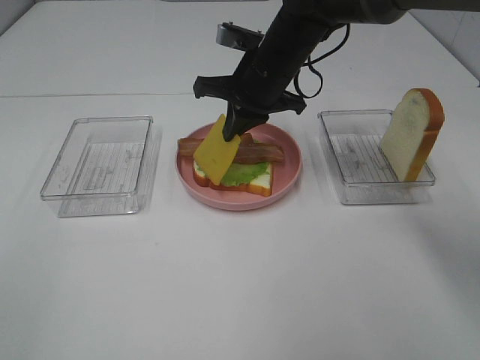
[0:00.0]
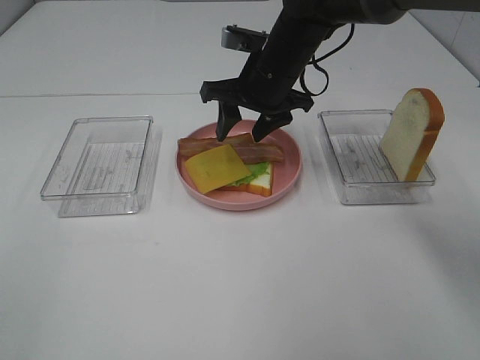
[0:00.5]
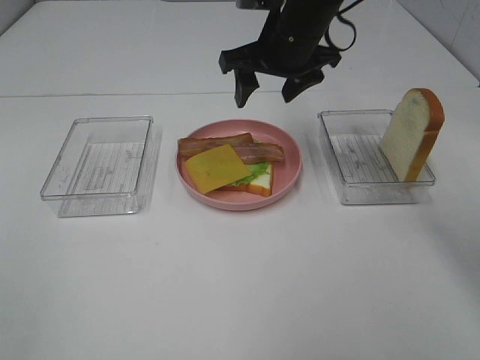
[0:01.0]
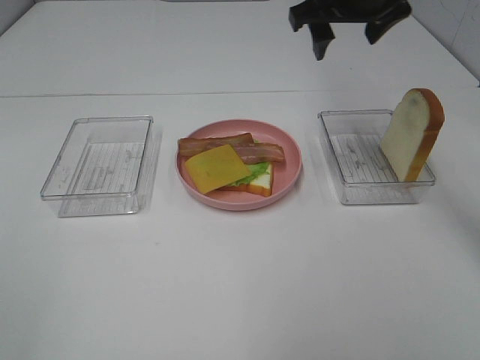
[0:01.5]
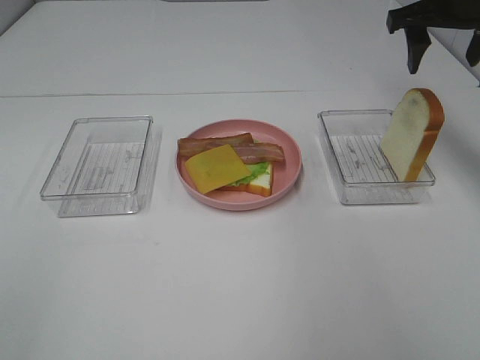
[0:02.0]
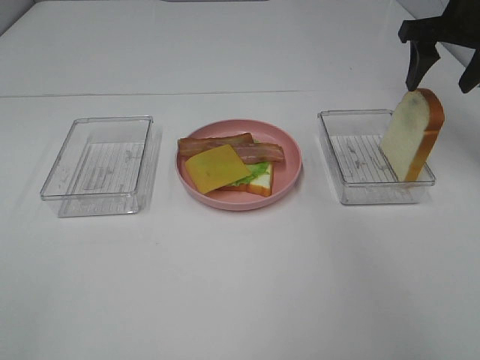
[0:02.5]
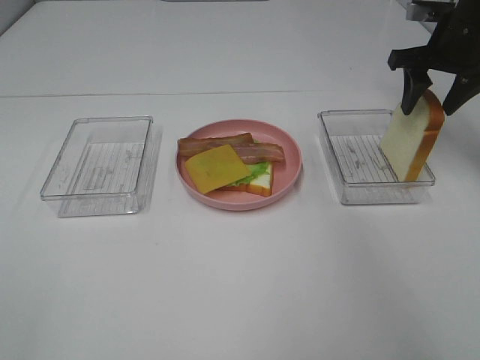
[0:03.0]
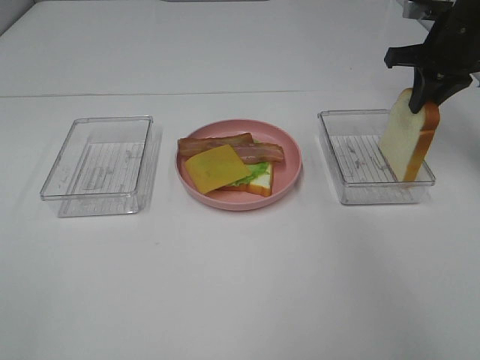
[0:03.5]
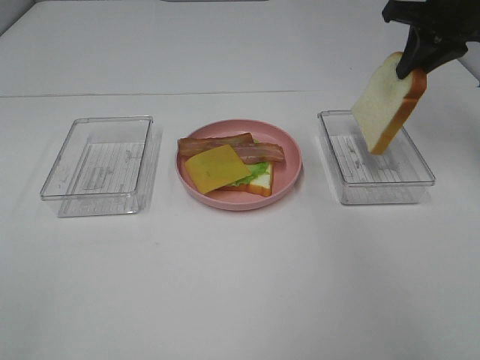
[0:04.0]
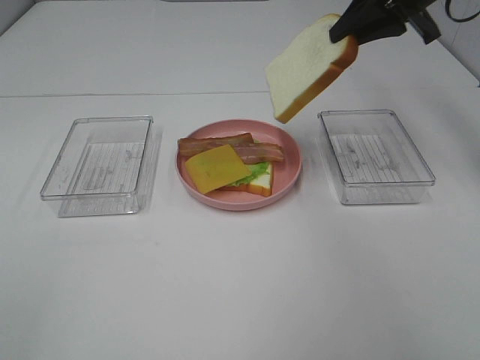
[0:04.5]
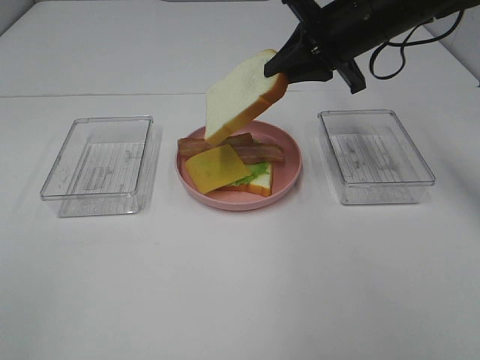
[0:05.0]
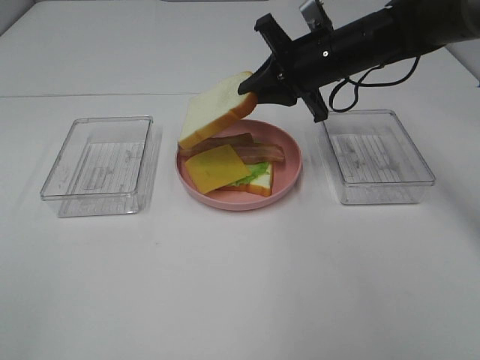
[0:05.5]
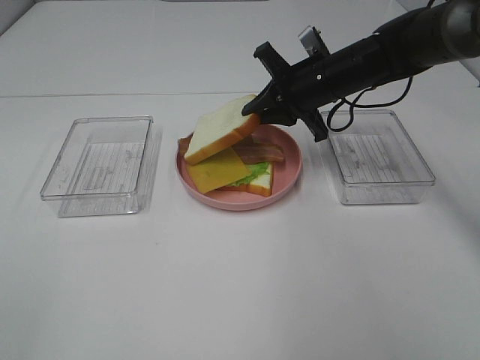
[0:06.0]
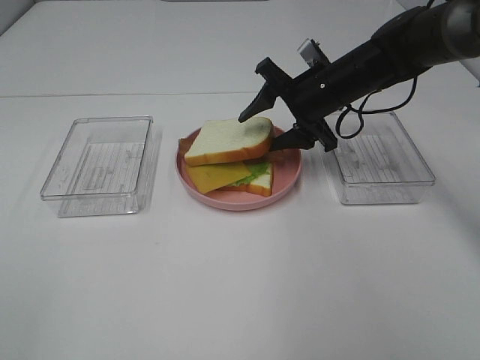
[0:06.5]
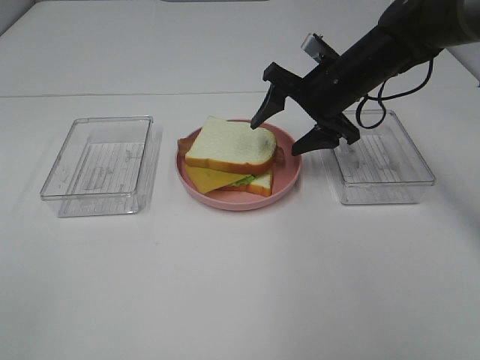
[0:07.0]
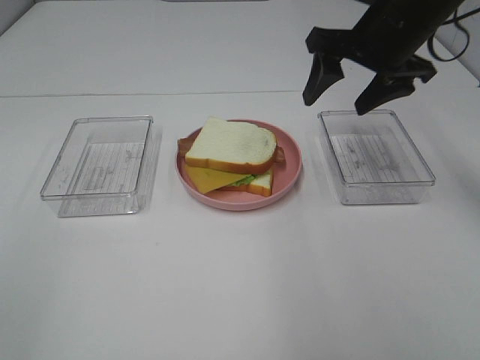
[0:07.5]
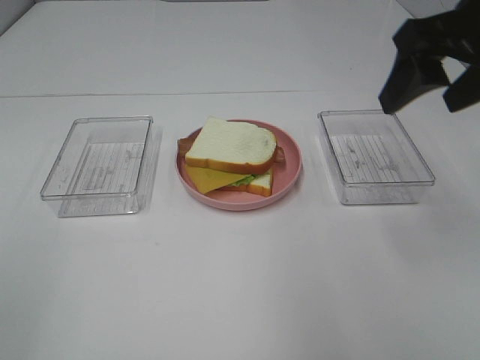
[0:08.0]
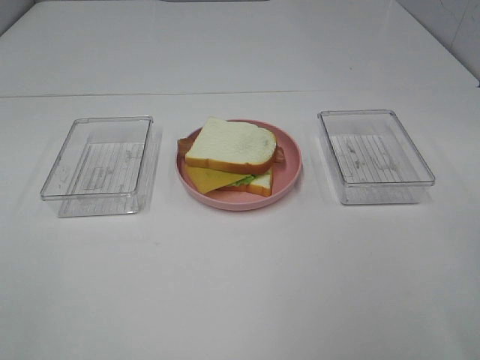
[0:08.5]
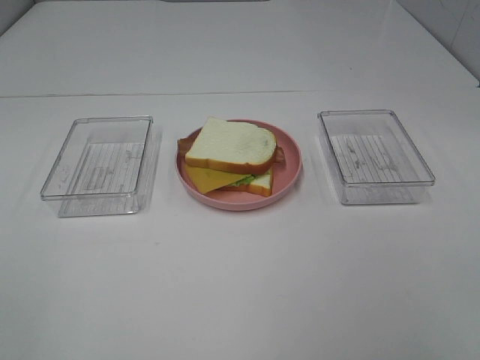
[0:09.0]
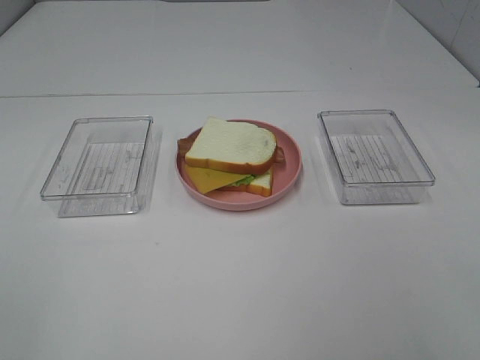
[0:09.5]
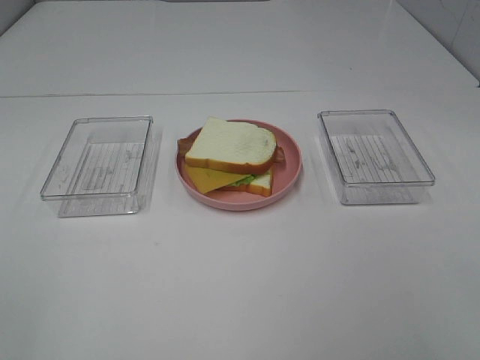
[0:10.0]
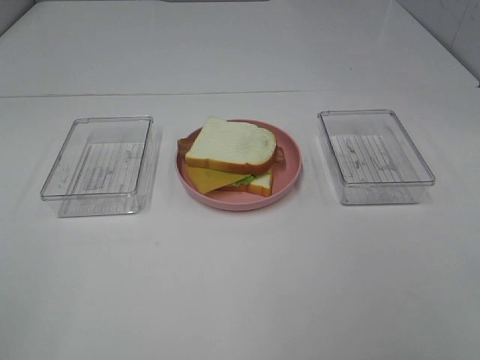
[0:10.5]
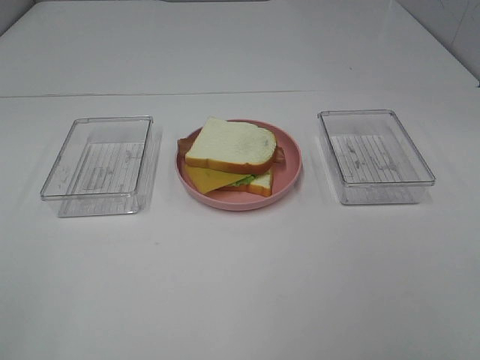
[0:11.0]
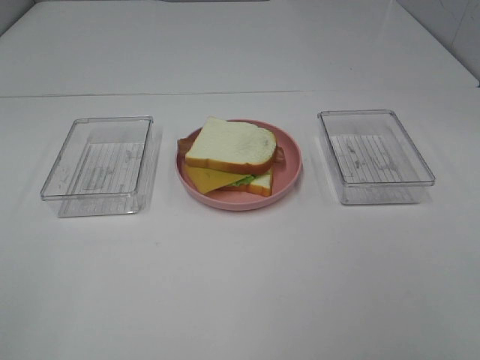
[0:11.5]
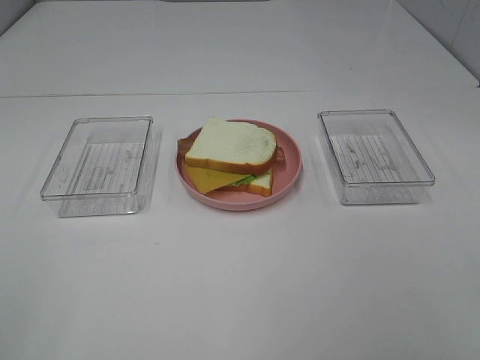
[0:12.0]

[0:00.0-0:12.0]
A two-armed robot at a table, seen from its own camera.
Task of the whole recording: Make sandwiches.
Step, 0:01.0 to 0:03.0: Right hand:grab the bread slice.
Step, 0:03.5 to 0:07.0: Right hand:place the bread slice on the cheese slice.
0:00.0 to 0:02.0: The right gripper shifts approximately 25 cm to the right and upward, and opens.
0:02.0 to 0:04.0: The right gripper closes.
0:04.0 to 0:06.0: The right gripper shifts about 20 cm to the left and downward.
0:06.0 to 0:08.0: The right gripper travels backward, upward and to the right by some 25 cm, and opens its fingers.
0:08.0 to 0:10.0: The right gripper travels backward by about 25 cm.

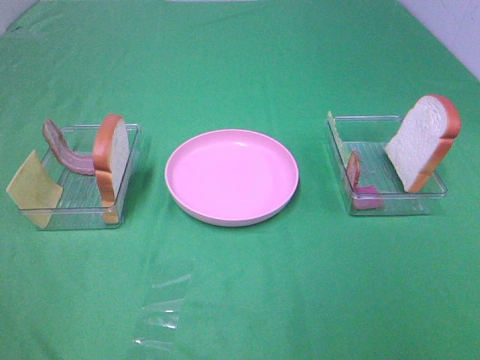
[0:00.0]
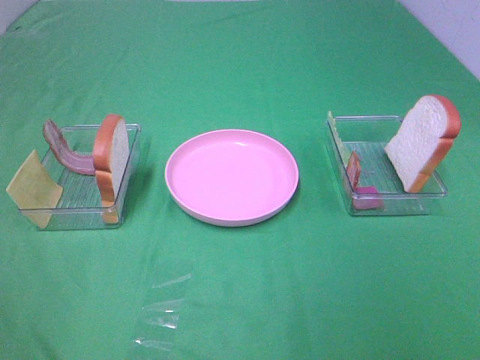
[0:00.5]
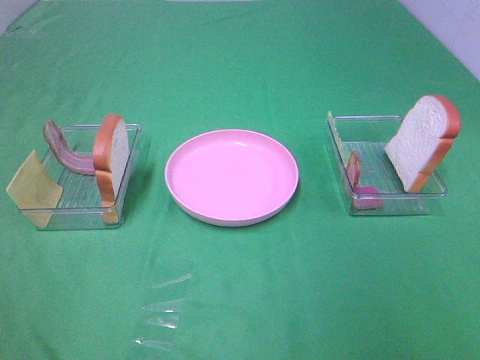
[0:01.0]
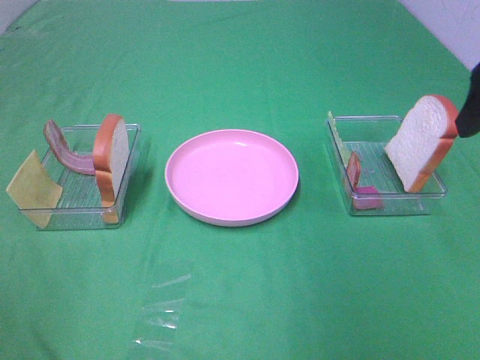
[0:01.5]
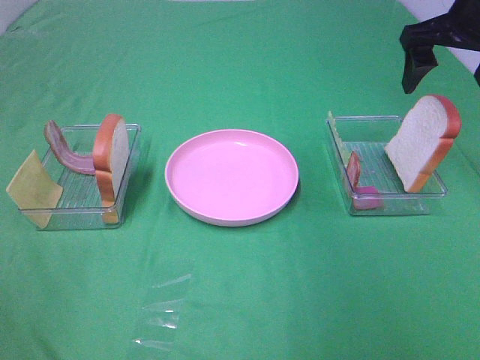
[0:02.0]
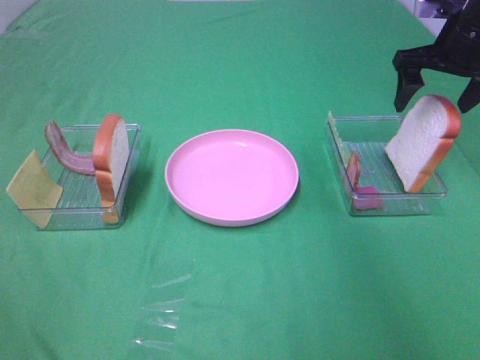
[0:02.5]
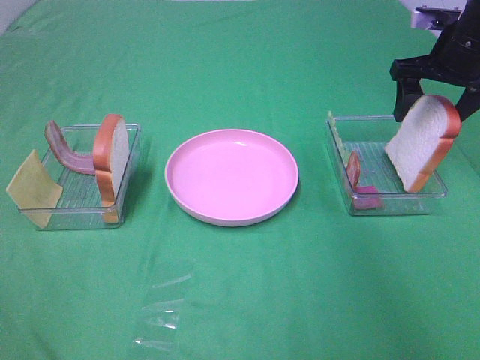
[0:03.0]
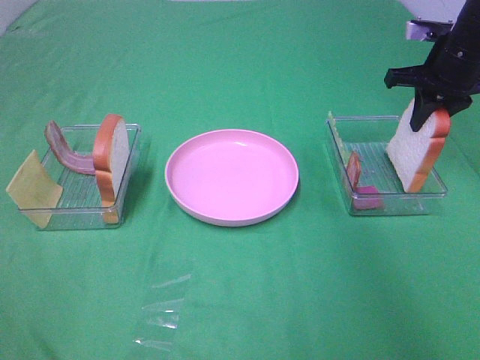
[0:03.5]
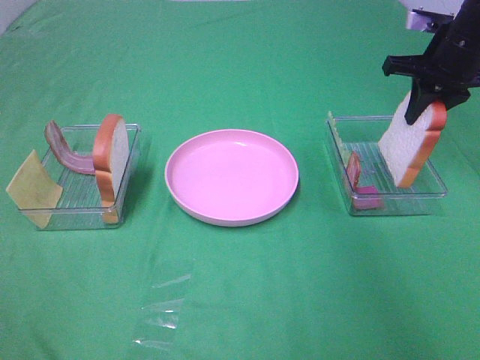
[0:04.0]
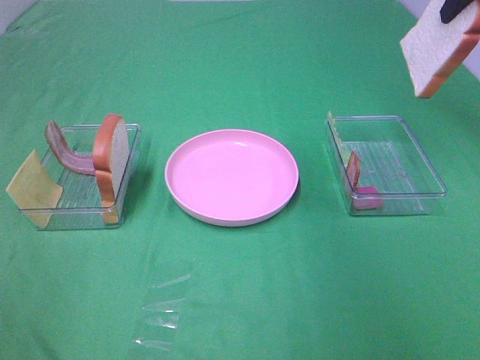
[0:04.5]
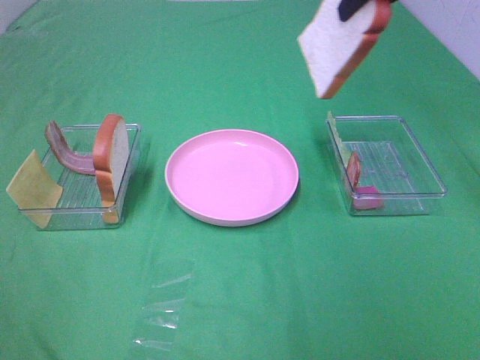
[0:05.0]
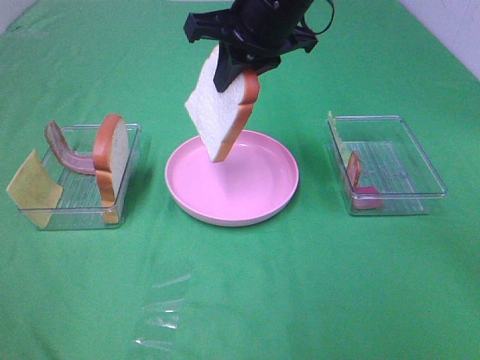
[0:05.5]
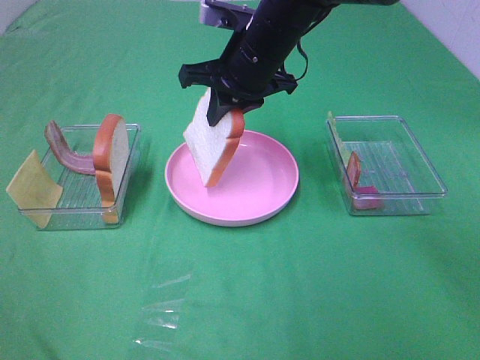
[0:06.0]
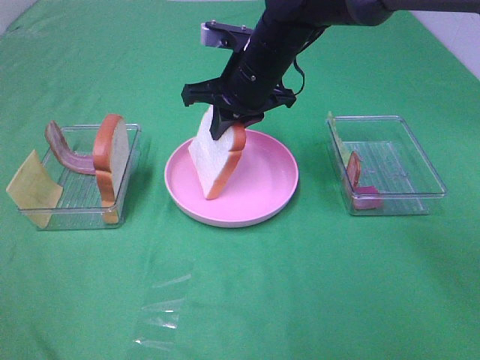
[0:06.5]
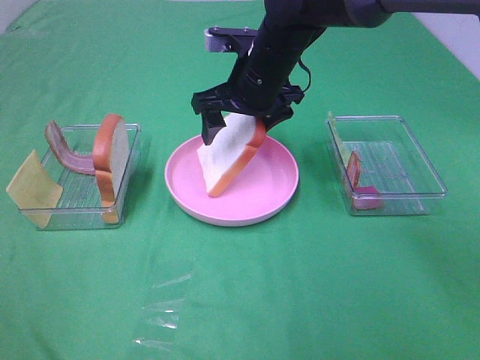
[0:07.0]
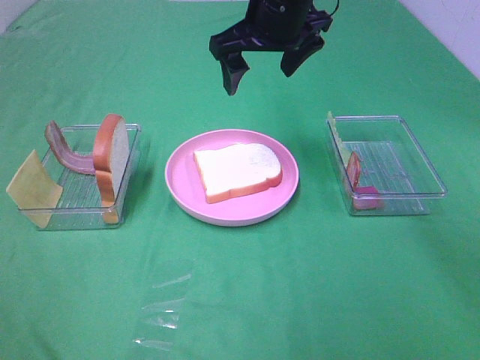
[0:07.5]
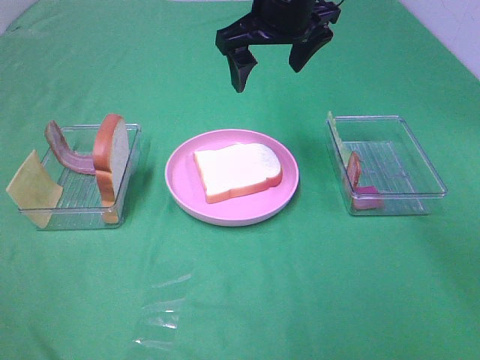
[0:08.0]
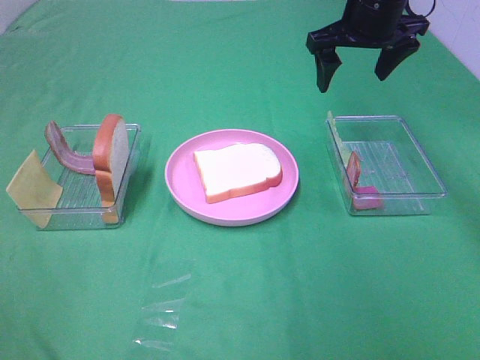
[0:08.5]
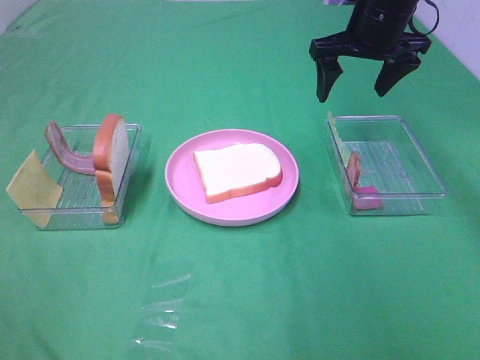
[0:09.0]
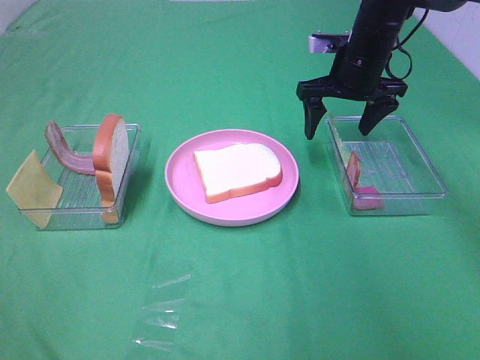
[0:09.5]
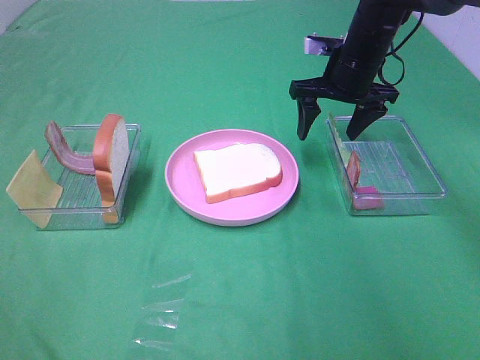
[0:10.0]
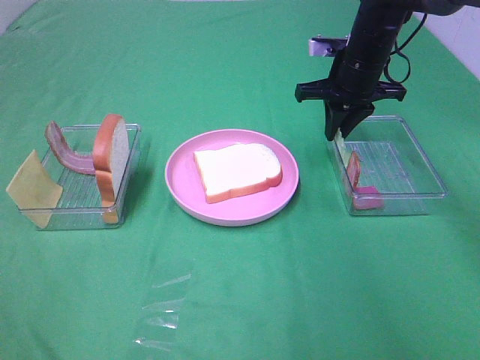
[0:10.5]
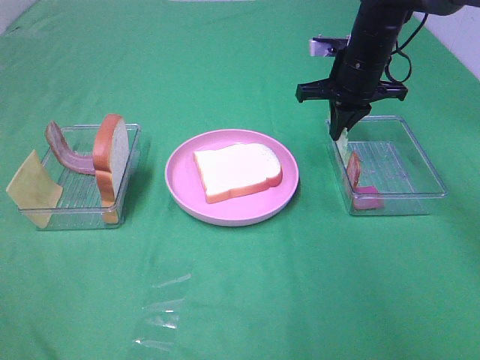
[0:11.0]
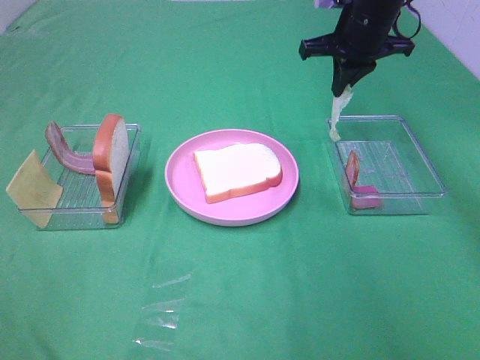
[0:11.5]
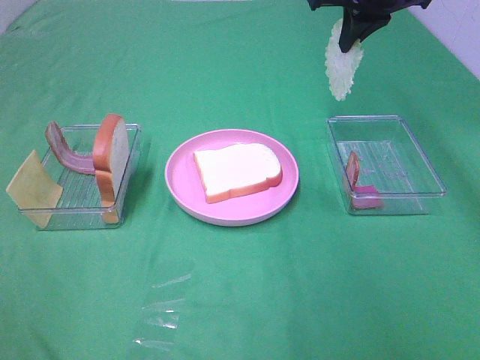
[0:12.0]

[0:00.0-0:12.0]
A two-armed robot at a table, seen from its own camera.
Task of the whole recording: Make sandwiches.
Step, 0:00.0 to 0:03.5: Right hand:grab the bread slice.
Step, 0:04.0 to 0:07.0: Right hand:place the bread slice on the plate.
Step, 0:07.5 to 0:10.5: Right hand:grab the lettuce slice.
0:00.0 to 0:02.0: The right gripper heads forward, covering roughly 40 cm.
0:02.0 to 0:04.0: The right gripper travels downward by some 5 cm, and closes up.
0:04.0 to 0:06.0: The right gripper goes roughly 25 cm to the left.
0:06.0 to 0:08.0: The right gripper heads upward, covering approximately 5 cm, and opens its fingers.
0:08.0 to 0:10.0: The right gripper heads to the right and downward, covering roughly 15 cm.
0:10.0 to 0:12.0: The right gripper moves upward, about 10 cm, and closes.

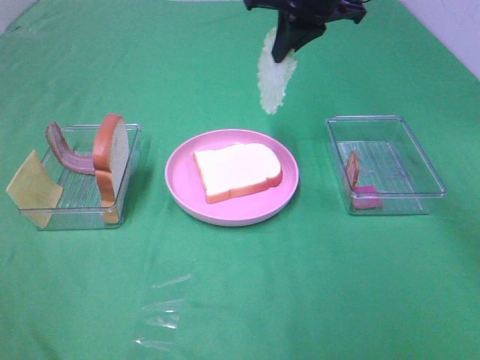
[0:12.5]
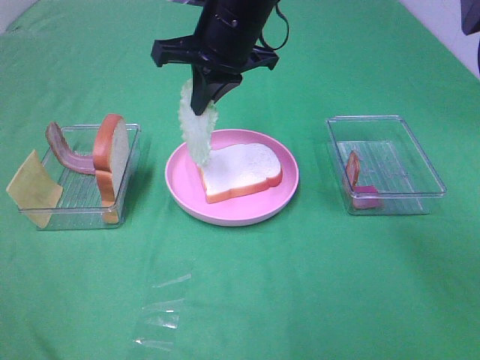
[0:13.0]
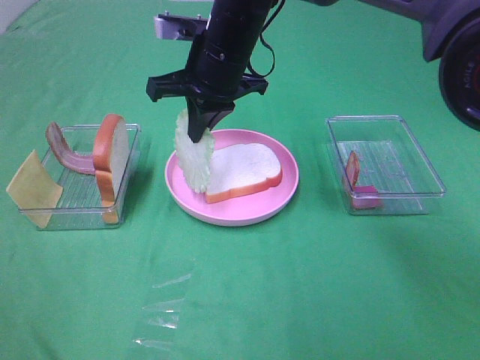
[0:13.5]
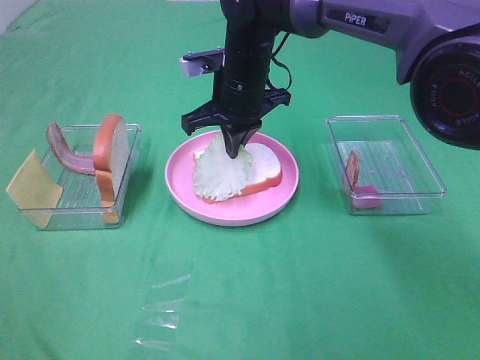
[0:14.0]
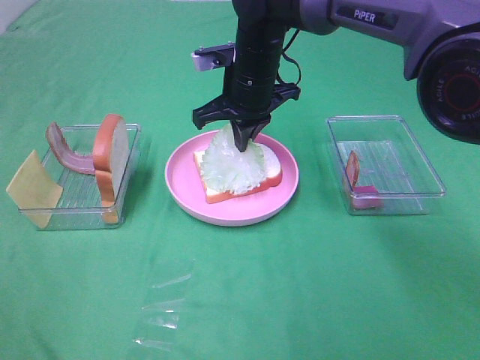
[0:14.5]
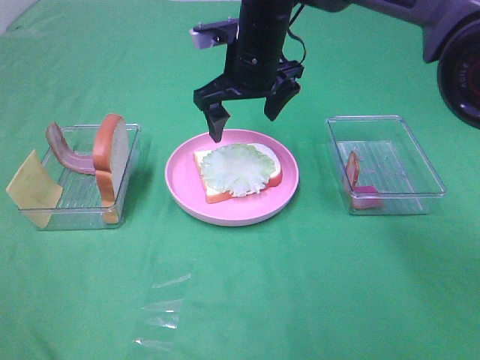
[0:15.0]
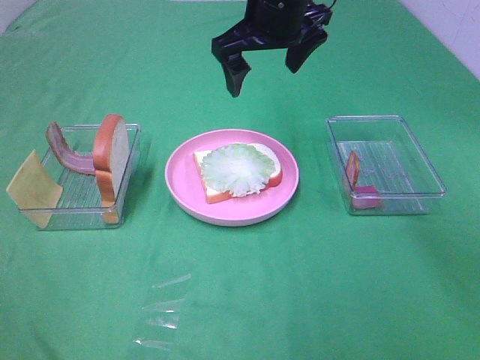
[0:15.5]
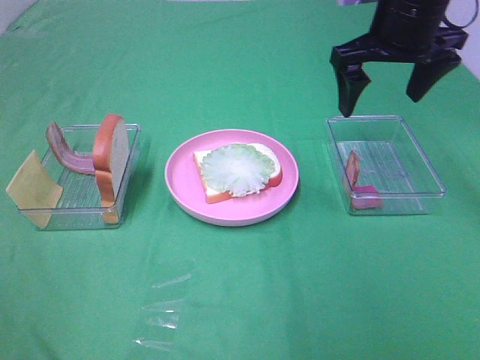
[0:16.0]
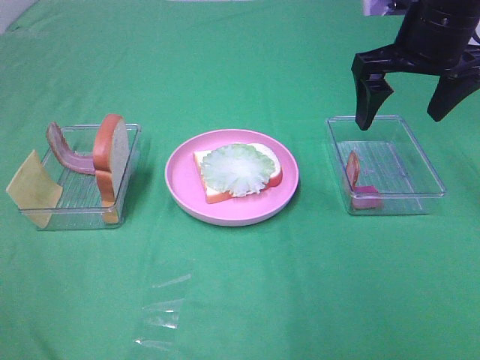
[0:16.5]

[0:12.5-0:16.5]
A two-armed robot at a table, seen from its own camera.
Task of the whole recording: Make sandwiches.
Step, 0:12.5 to 0:14.5: Right hand:place the lettuce slice on the bread slice.
0:12.5 to 0:14.5: The right gripper heads downward and to the left, covering roughly 15 cm.
0:14.5 to 0:16.5: The right gripper shifts roughly 20 cm to the right and upward, and opens its fingers.
